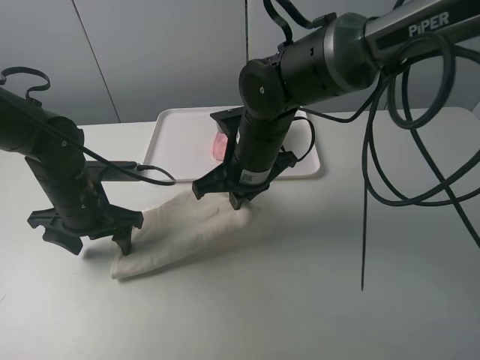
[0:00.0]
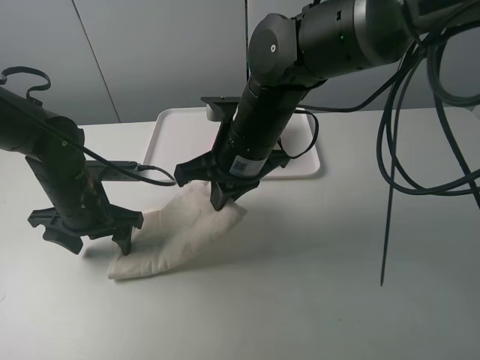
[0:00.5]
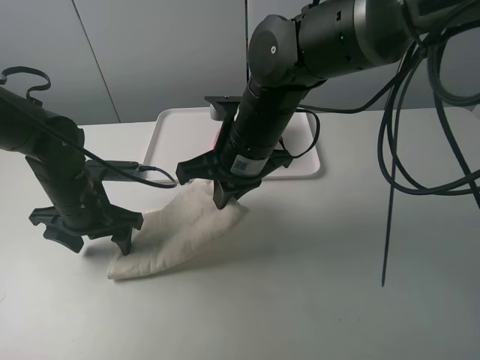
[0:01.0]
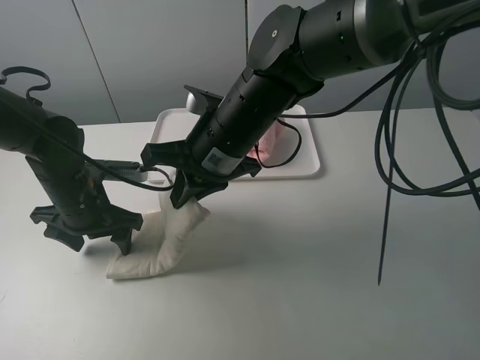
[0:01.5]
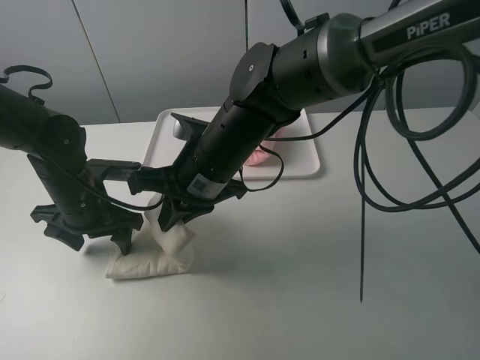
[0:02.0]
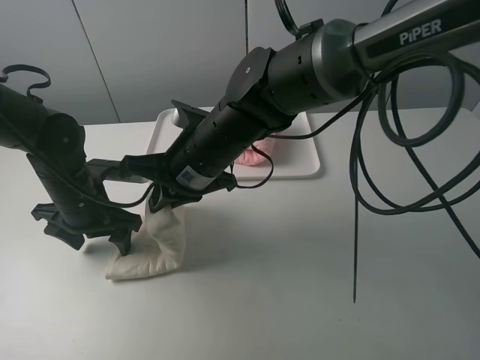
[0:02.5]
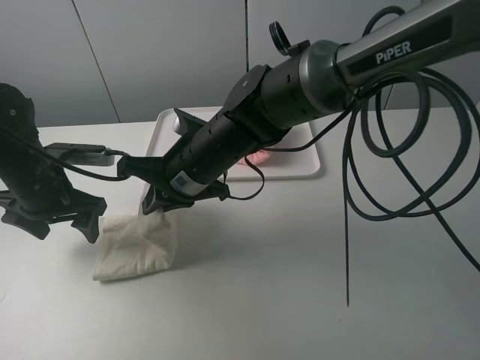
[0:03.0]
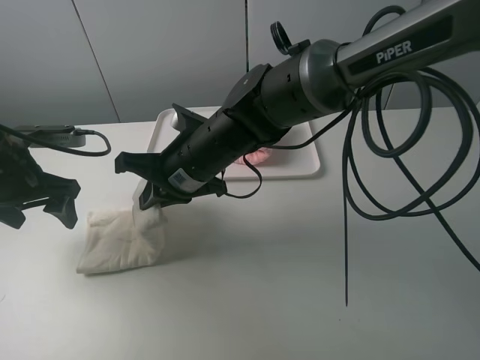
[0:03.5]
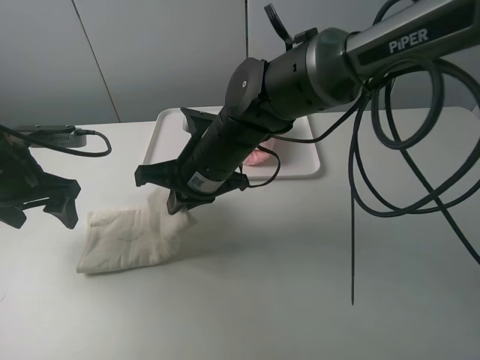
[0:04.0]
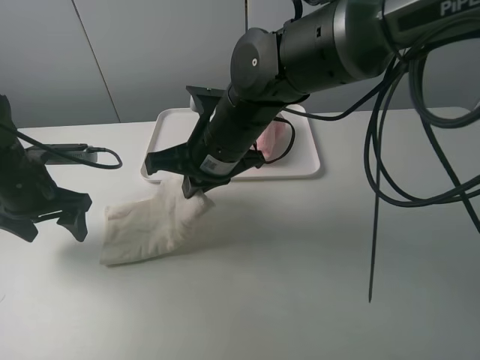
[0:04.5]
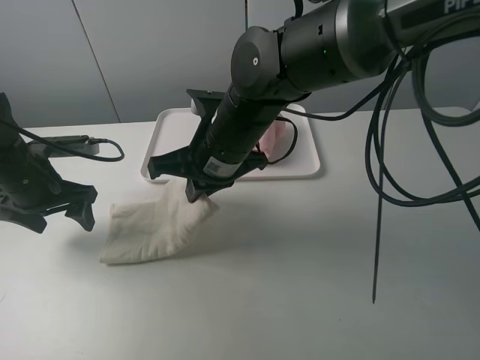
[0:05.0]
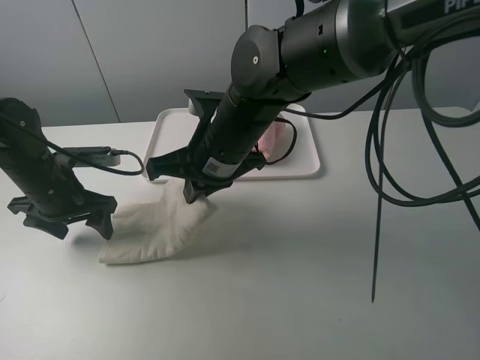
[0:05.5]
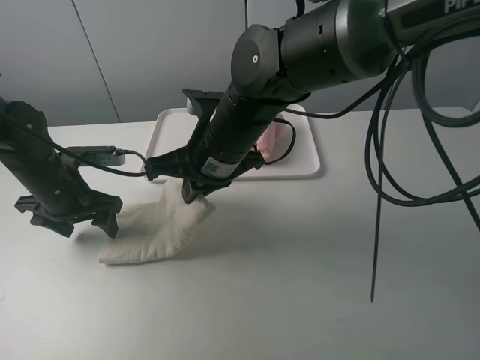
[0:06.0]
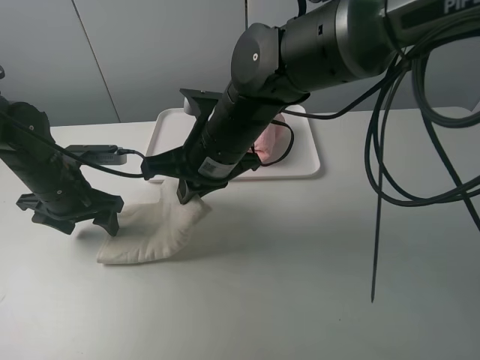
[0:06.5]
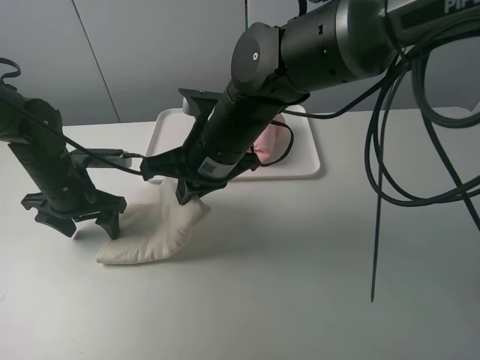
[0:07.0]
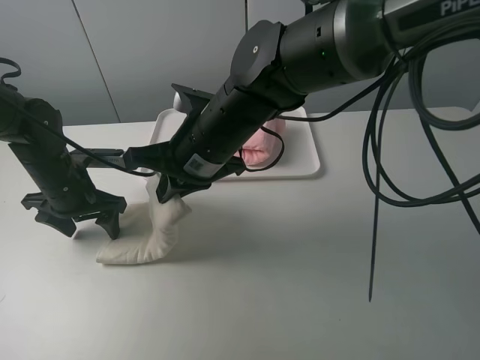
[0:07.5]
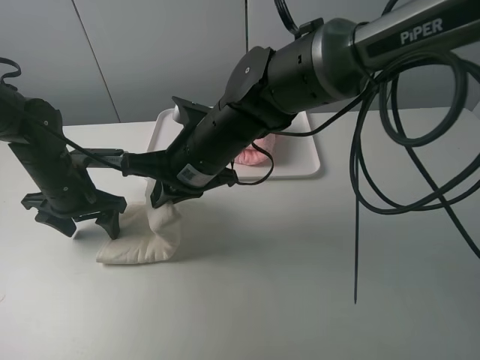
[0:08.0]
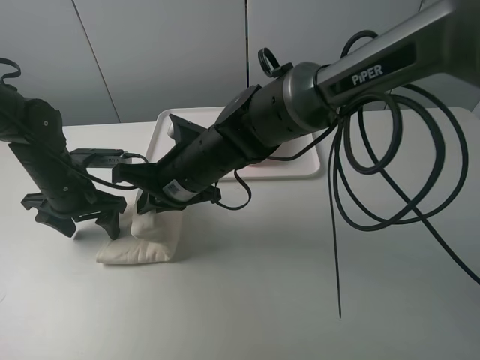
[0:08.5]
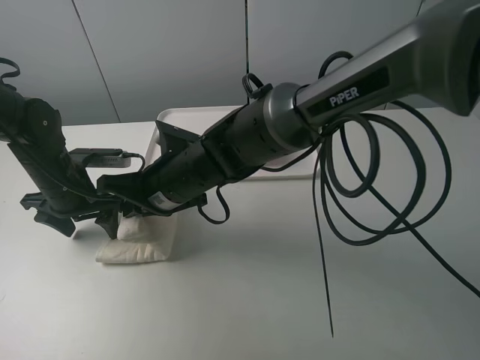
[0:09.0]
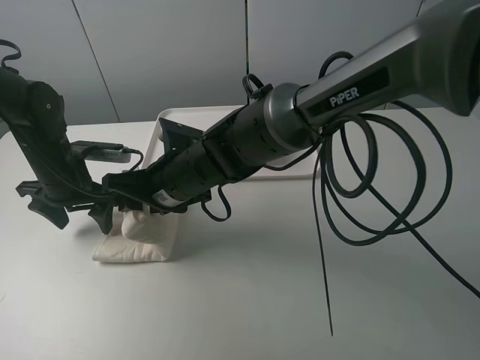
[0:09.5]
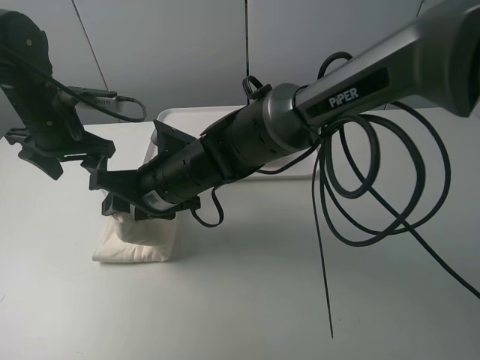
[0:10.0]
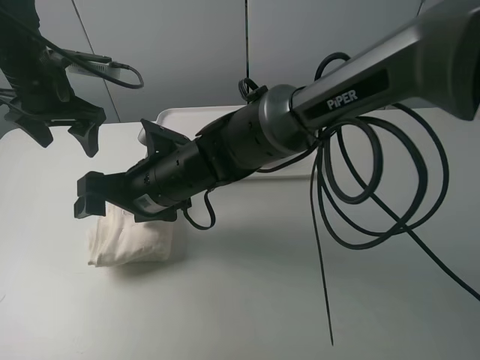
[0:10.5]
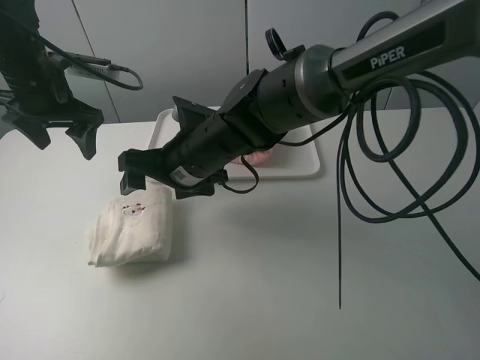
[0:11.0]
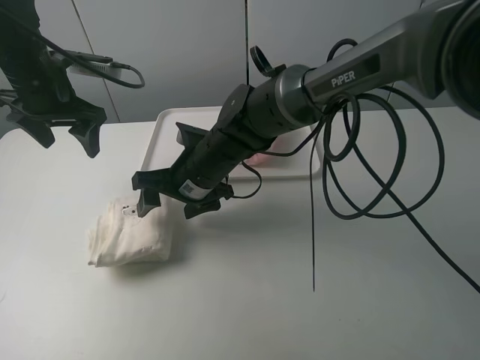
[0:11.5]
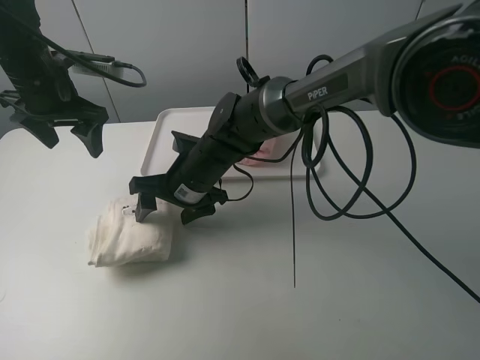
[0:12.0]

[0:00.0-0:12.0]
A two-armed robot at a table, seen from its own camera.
Task of the whole recording: fold one of the towels by two grippers and place it on the tray,then fold another towel by two grippers and place it on the folded towel.
Step, 0:00.0 to 0:10.5: Fold the white towel from right to left with right gripper.
0:00.0 to 0:02.0: The right gripper moves some 5 cm.
0:02.0 to 0:04.0: The left gripper moves to the left and upward, some 10 cm.
0:04.0 to 0:06.0: The left gripper shifts some 5 cm downward.
0:08.0 to 0:10.0: The left gripper moves upward, approximately 10 cm; the right gripper moves some 5 cm, and opens up.
0:10.0 to 0:12.0: The right gripper moves forward, roughly 5 cm.

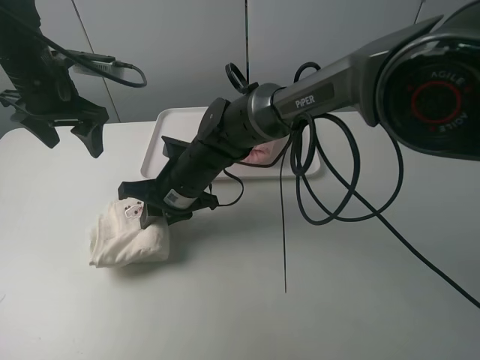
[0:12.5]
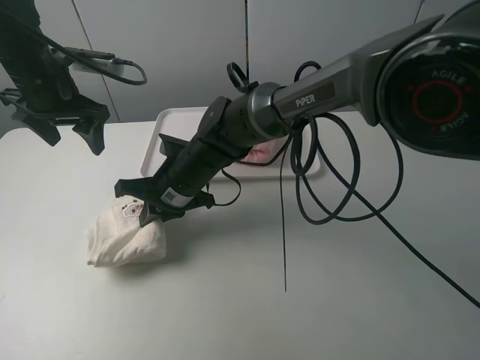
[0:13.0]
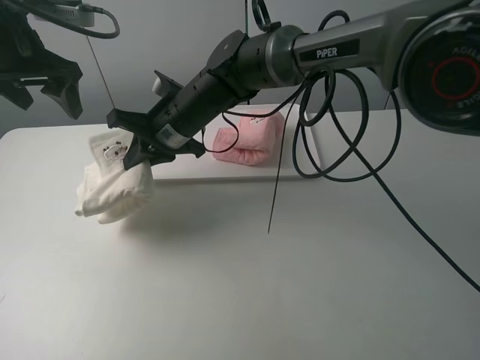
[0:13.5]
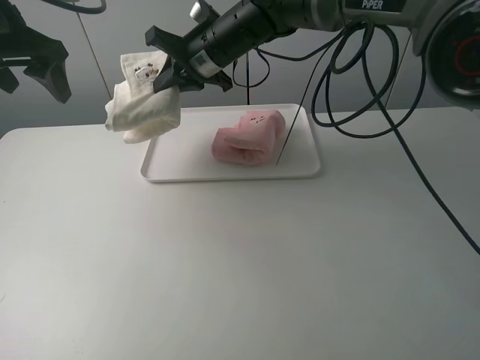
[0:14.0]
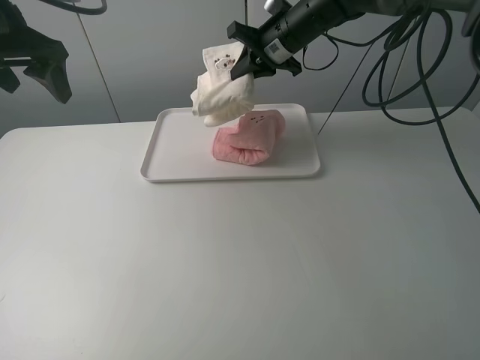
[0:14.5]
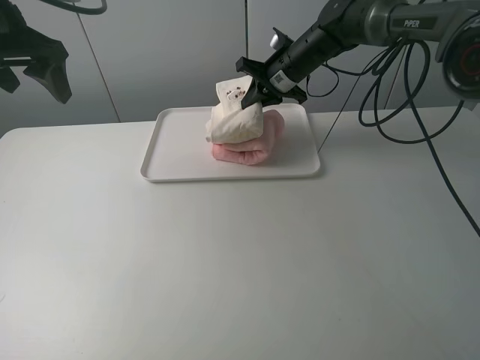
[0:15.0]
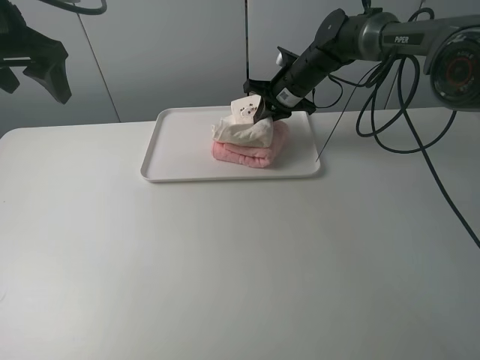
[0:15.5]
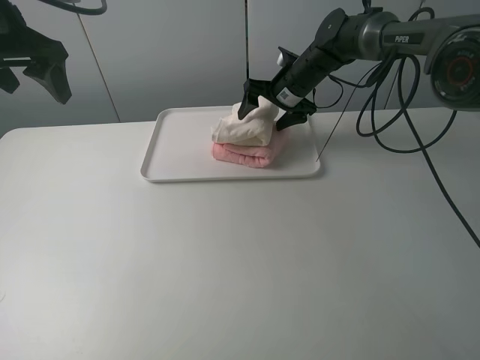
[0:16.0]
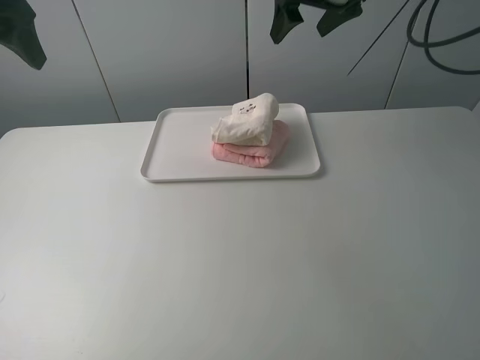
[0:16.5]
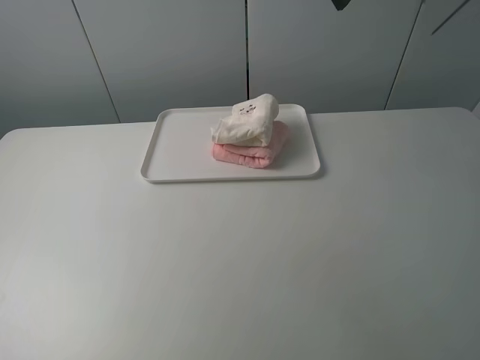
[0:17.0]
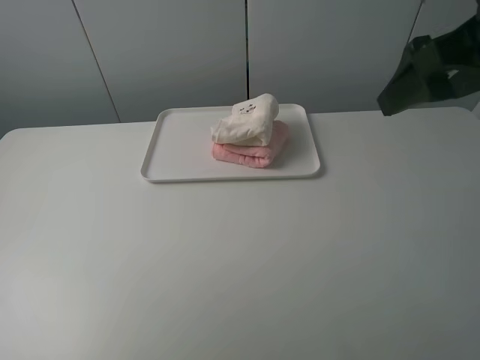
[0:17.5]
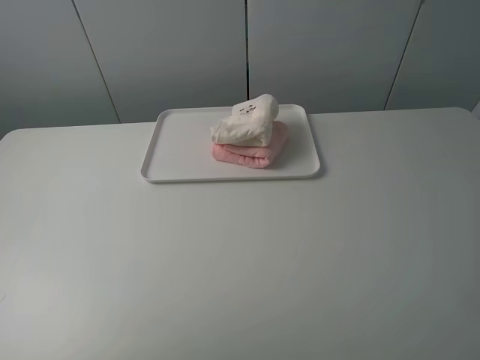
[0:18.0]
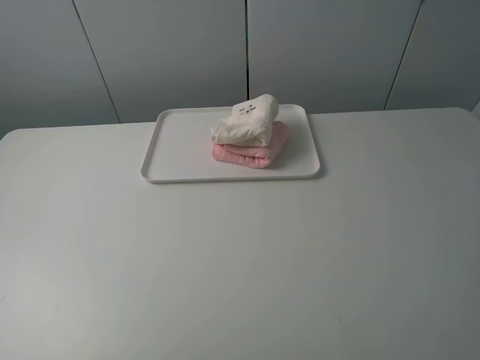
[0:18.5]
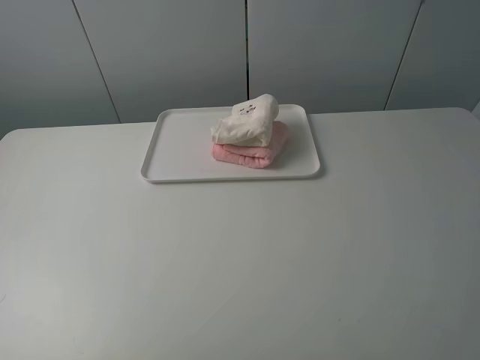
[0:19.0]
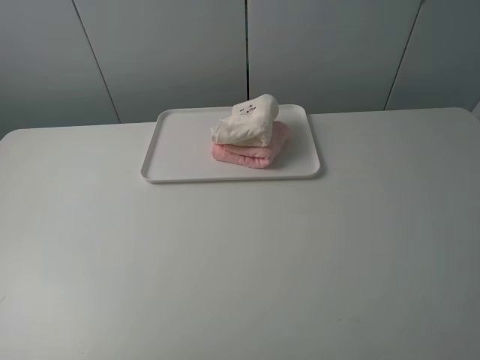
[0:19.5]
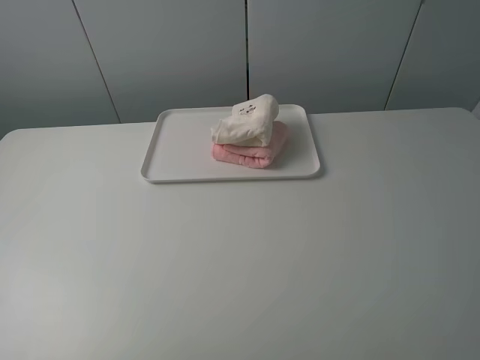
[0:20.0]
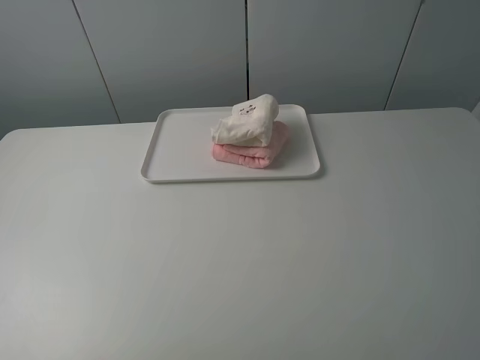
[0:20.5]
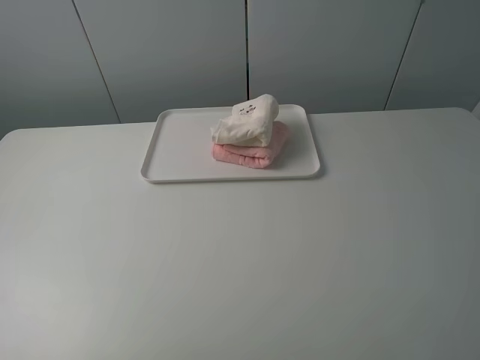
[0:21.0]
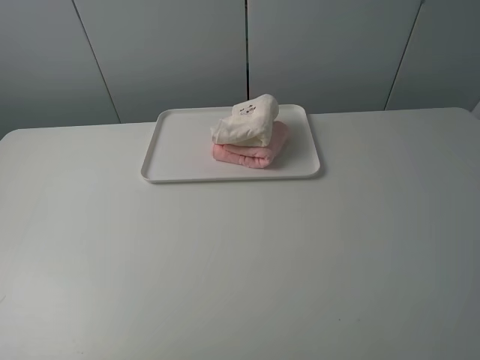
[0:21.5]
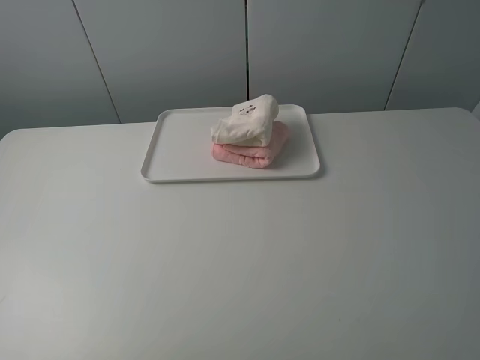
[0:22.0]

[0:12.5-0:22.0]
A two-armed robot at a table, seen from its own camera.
Task of the whole recording: fold one of the towels by two grippers and place it on the tray,then fold another towel by two grippers and place it on the folded towel.
Step, 0:13.0 to 0:16.0: Place the white towel on the pink towel with the right gripper.
0:12.5 to 0:14.5: The left gripper shifts about 10 cm upward. The right gripper travels forward, to the right and upward by approximately 25 cm.
0:14.5 to 0:16.5: The left gripper goes approximately 5 cm upward. The right gripper travels upward and to the right by some 15 cm, and opens up.
0:16.5 to 0:18.0: The grippers both shift backward by approximately 30 cm.
0:20.0 to 0:22.0: The two grippers keep their place.
